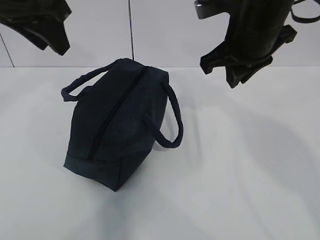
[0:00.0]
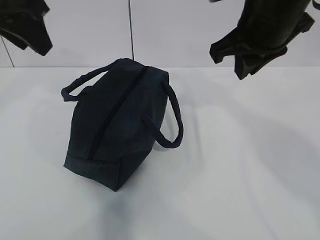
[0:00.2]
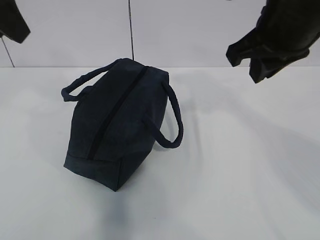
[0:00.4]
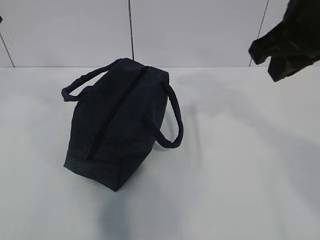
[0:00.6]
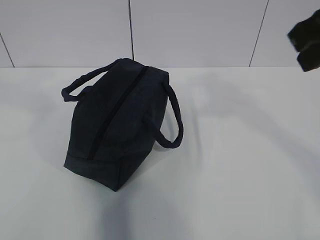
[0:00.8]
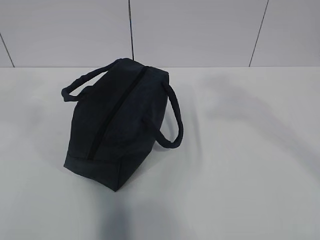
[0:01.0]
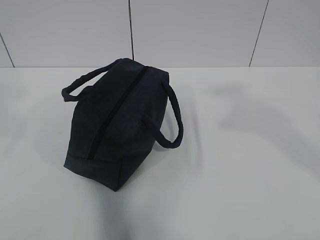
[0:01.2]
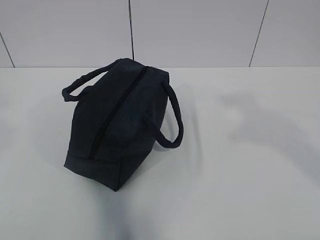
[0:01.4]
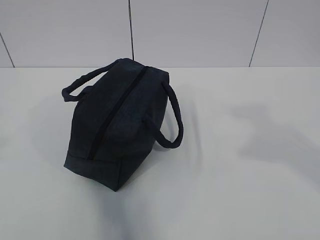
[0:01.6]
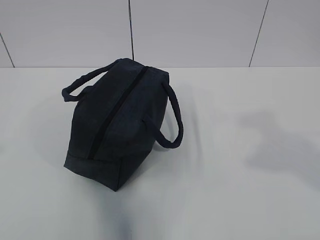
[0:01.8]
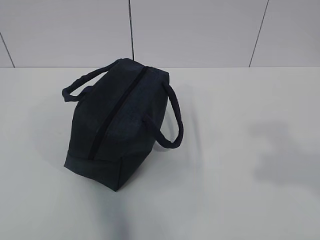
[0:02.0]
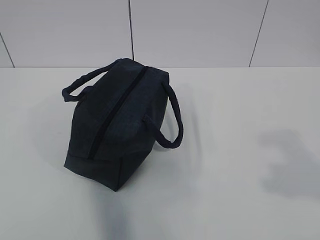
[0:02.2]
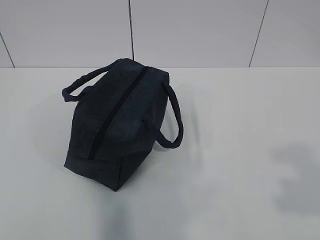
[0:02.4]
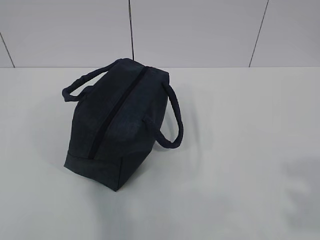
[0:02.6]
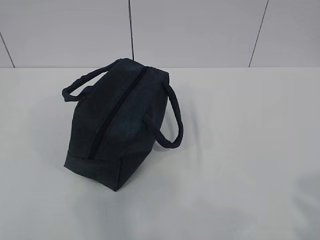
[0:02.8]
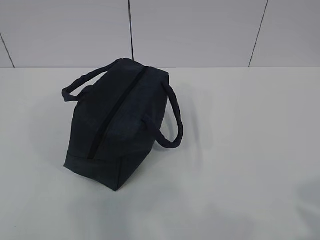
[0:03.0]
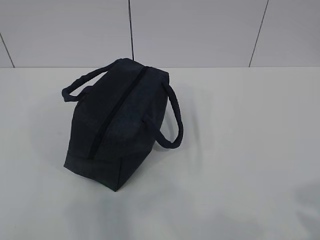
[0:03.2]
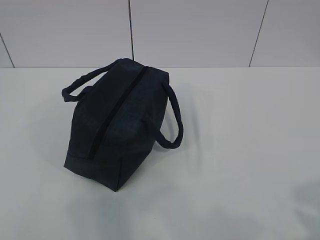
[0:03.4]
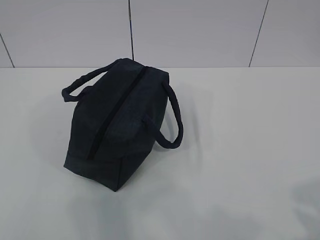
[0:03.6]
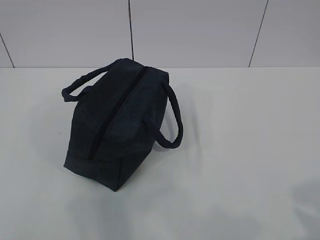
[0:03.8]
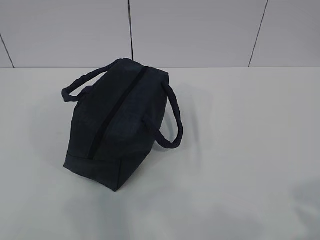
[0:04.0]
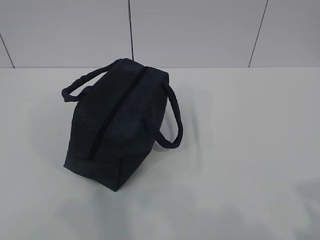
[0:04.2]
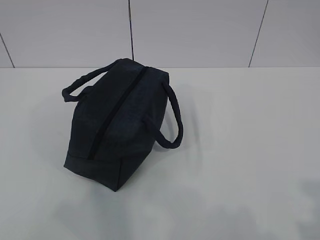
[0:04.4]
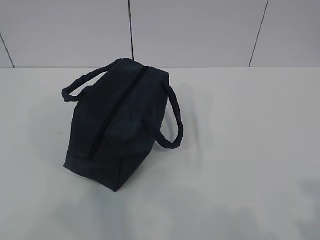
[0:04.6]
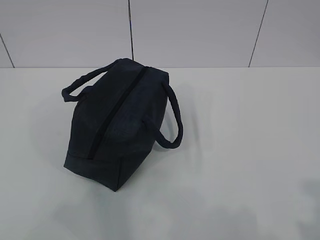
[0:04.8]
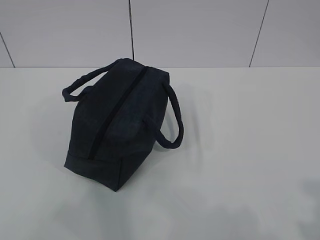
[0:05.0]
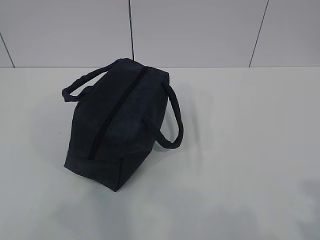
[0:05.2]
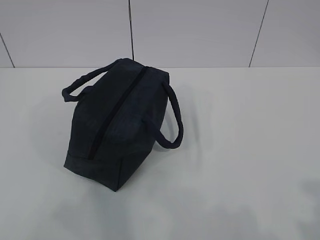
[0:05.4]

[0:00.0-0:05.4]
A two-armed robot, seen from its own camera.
0:00.0 to 0:01.4: The right gripper shifts some 25 cm backward and to the right, while the left gripper goes roughly 25 cm backward and to the left.
0:01.4 to 0:02.8: The right gripper moves backward, downward and to the right, some 20 cm, while the left gripper travels downward and backward by about 15 cm.
